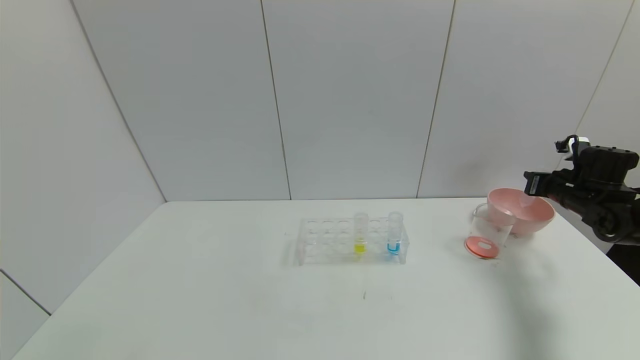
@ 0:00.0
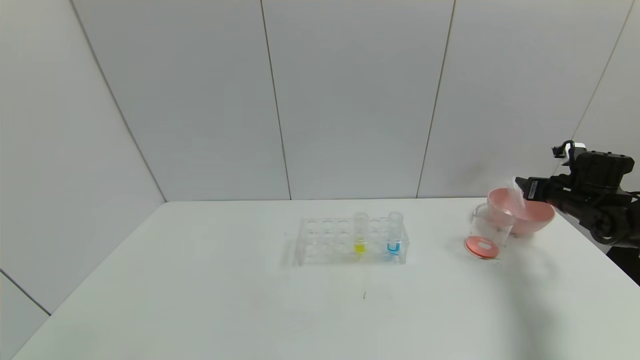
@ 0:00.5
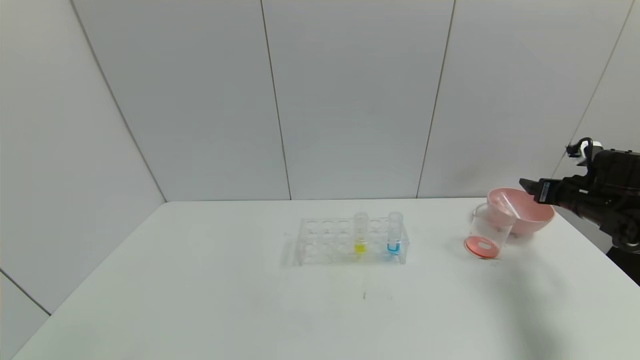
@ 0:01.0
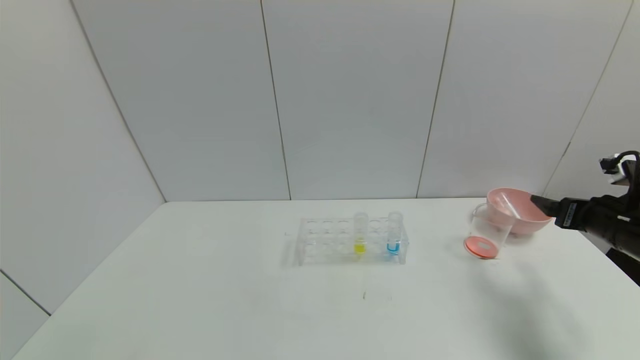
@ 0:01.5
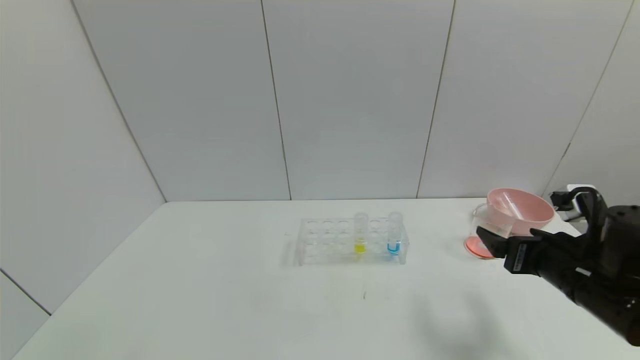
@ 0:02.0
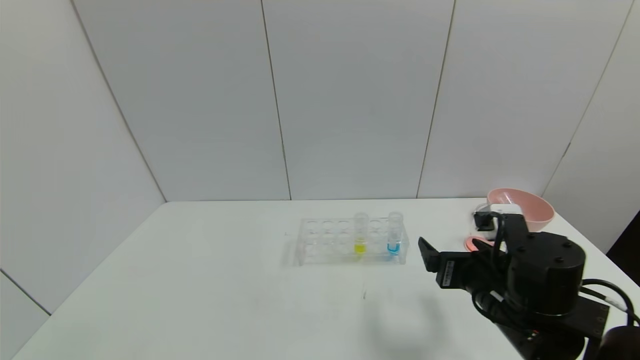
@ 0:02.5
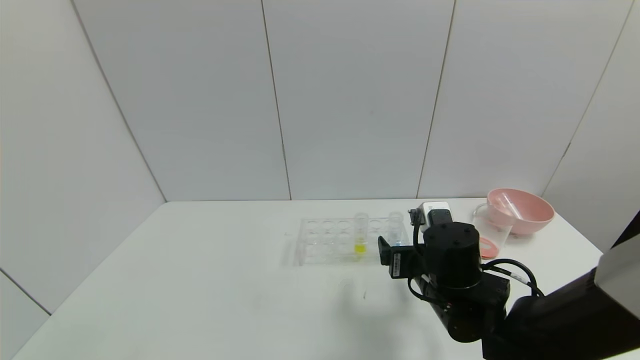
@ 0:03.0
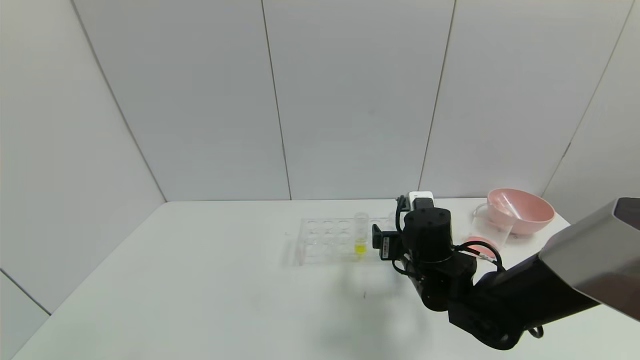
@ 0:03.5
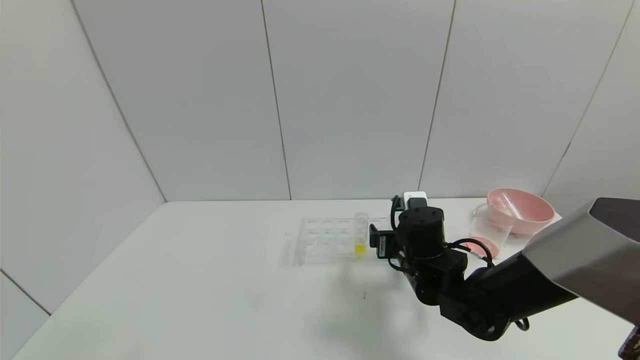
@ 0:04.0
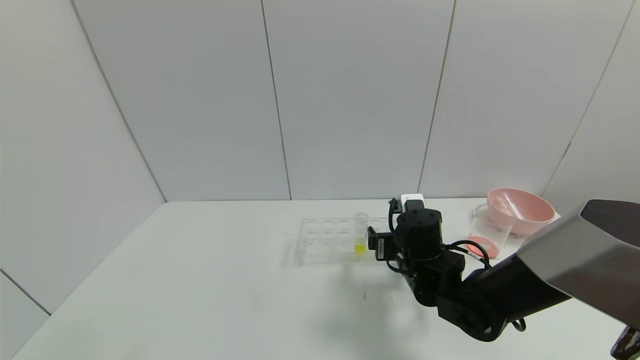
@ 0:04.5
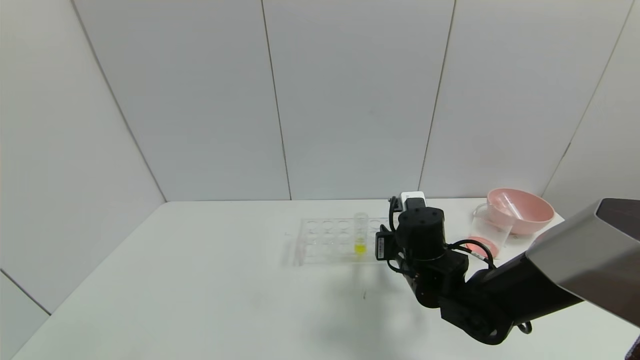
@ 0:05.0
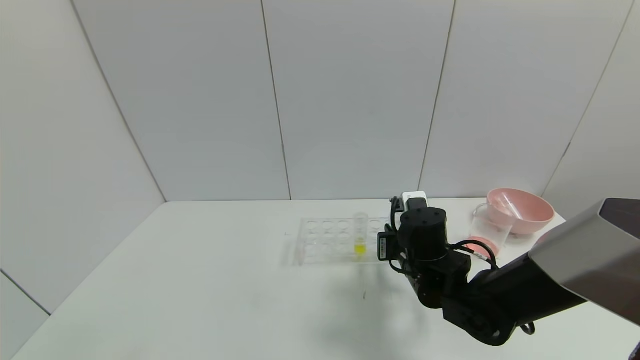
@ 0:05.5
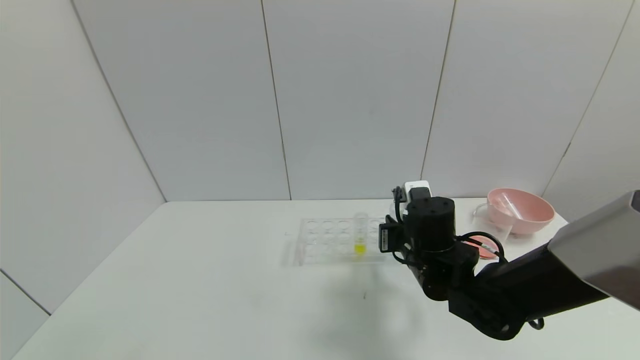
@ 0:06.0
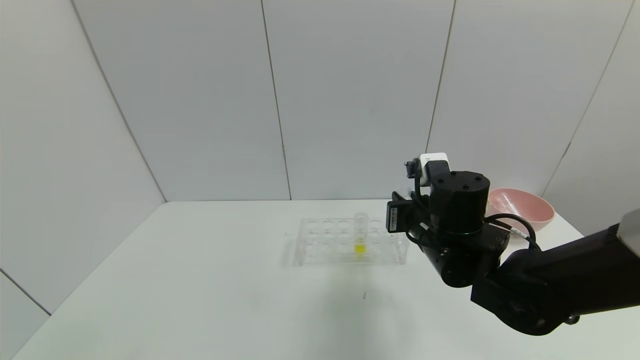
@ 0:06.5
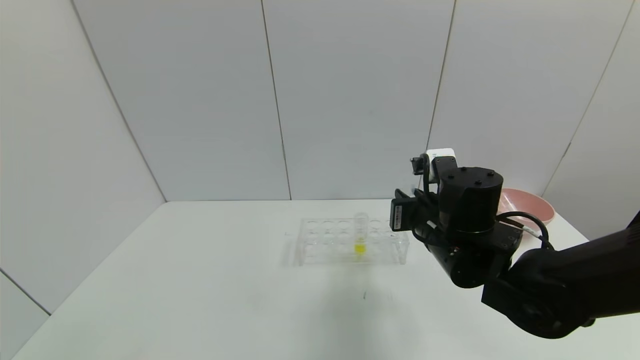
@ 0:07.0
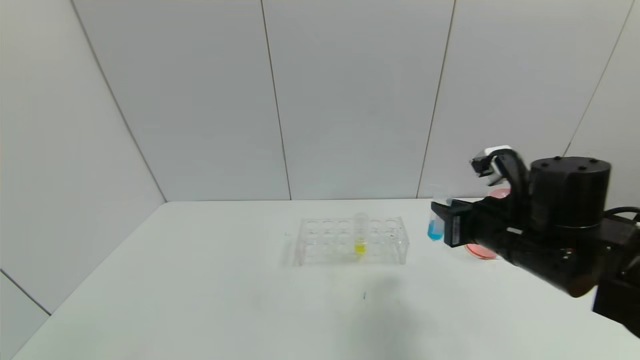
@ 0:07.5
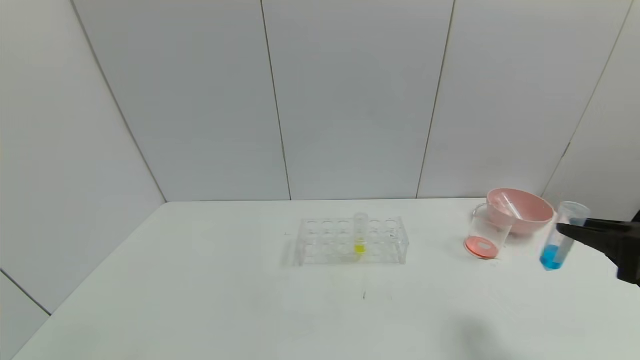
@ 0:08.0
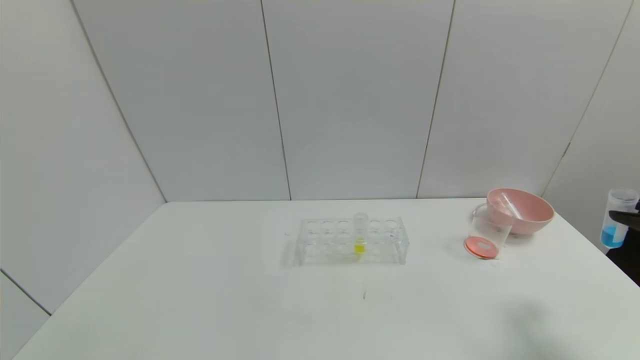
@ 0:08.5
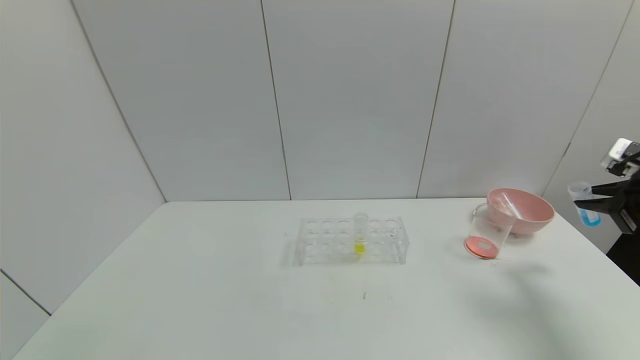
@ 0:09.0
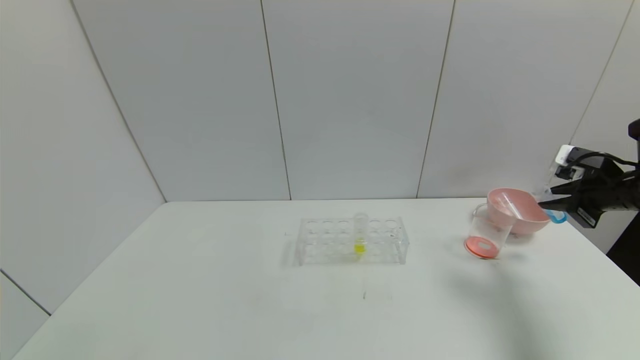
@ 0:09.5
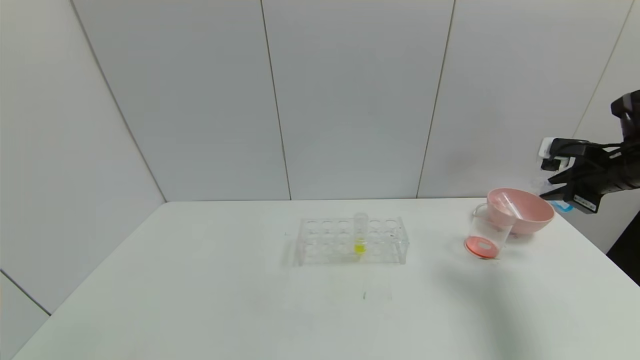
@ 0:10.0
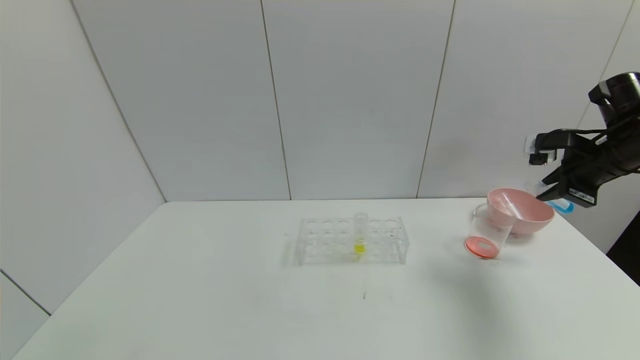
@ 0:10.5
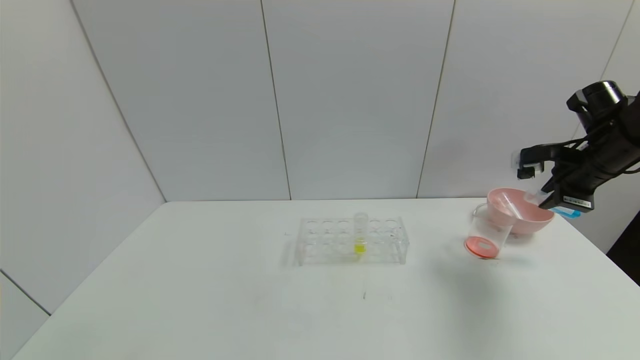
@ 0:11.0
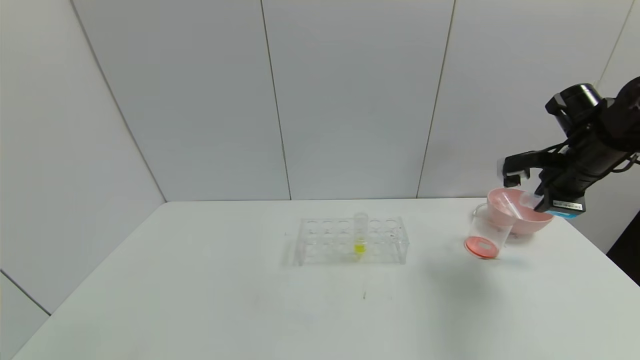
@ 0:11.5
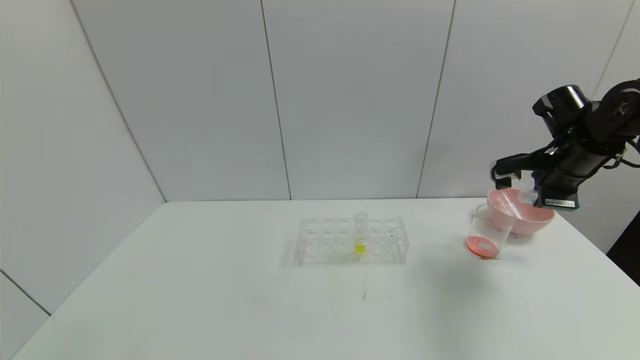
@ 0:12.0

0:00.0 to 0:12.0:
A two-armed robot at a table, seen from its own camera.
Task of the whole recording: pick up the test tube with red pigment and the test tube with blue pigment by grippers and pour them into the container.
Step, 0:00.0 to 0:02.0: Place the test tube into the bowl with right gripper.
Step, 0:02.5 to 0:07.5: Pick up the test tube containing the blue reagent with right gripper.
0:00.0 to 0:02.0: The right gripper shifts some 25 cm backward and to the left, and opens its fingers.
0:02.0 to 0:04.0: The right gripper heads to the left and forward, covering roughly 20 cm.
0:04.0 to 0:06.0: The right gripper closes its fingers.
0:06.0 to 0:08.0: The right gripper travels to the right, backward and upward by approximately 30 cm.
0:08.0 to 0:10.0: The right gripper shifts approximately 20 cm forward.
0:10.0 to 0:12.0: The right gripper goes some 5 cm to the left.

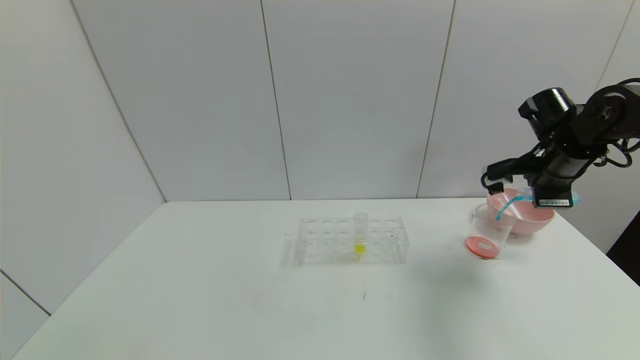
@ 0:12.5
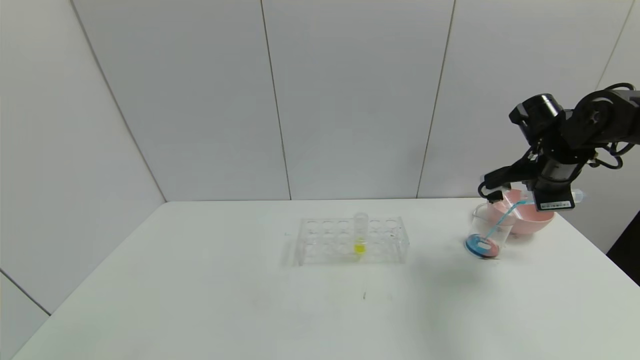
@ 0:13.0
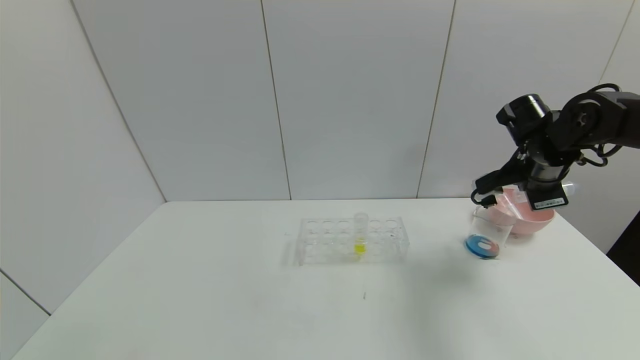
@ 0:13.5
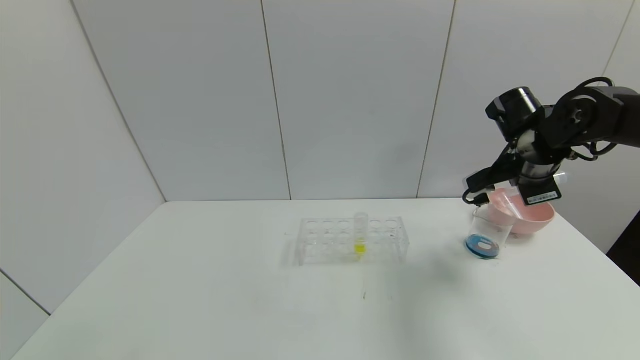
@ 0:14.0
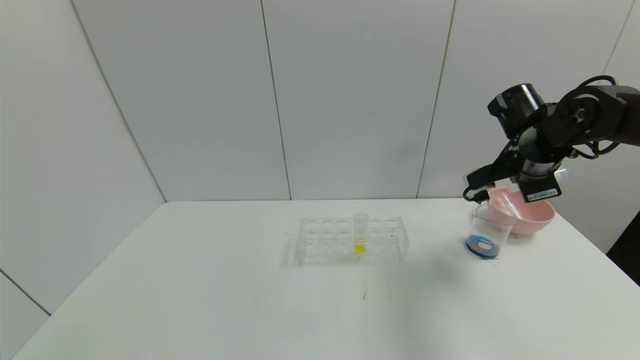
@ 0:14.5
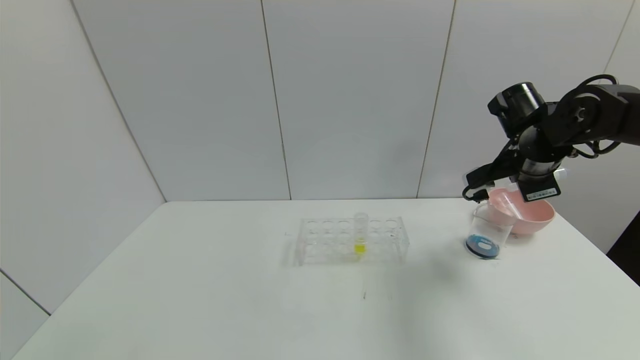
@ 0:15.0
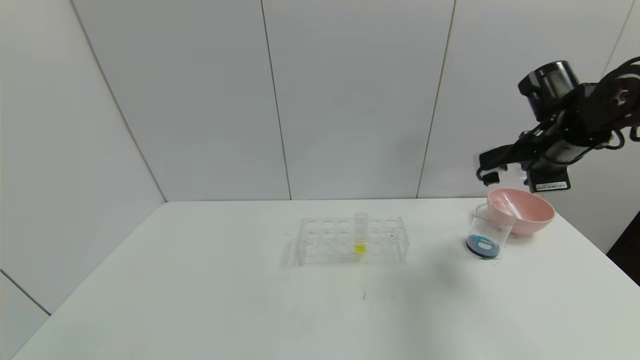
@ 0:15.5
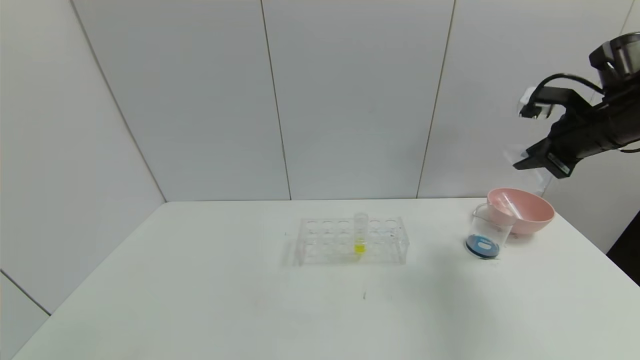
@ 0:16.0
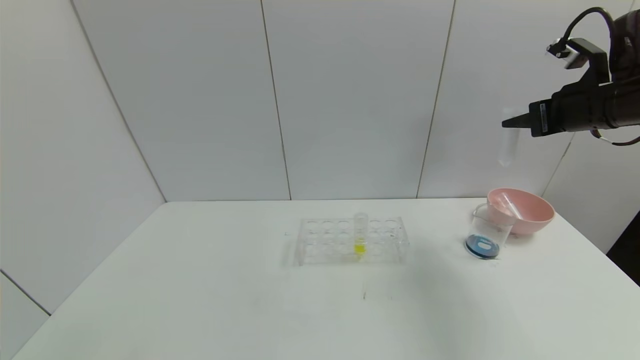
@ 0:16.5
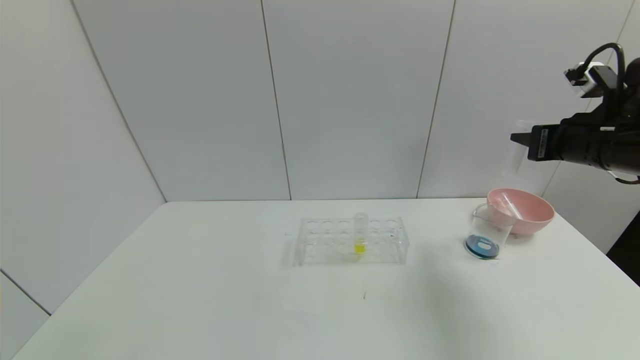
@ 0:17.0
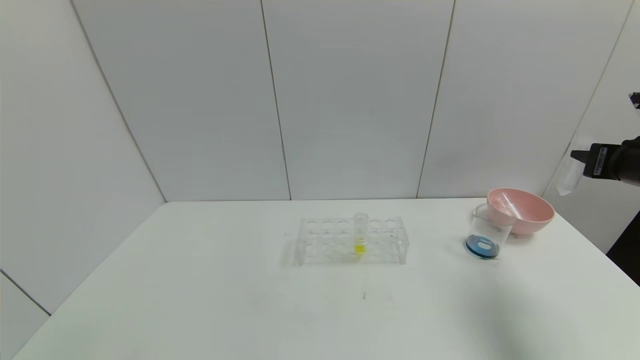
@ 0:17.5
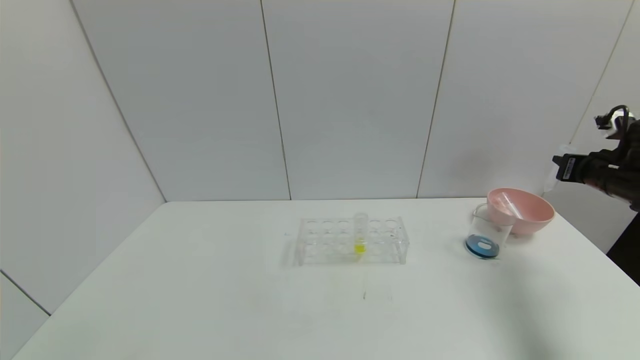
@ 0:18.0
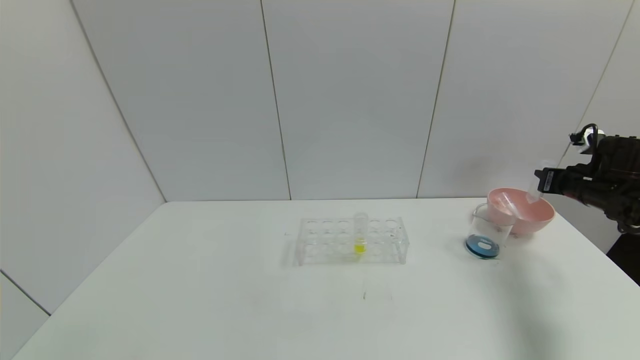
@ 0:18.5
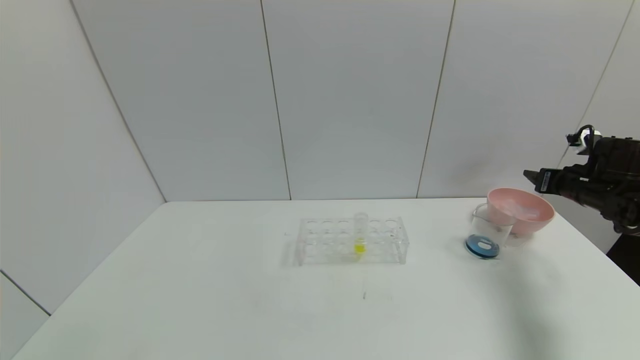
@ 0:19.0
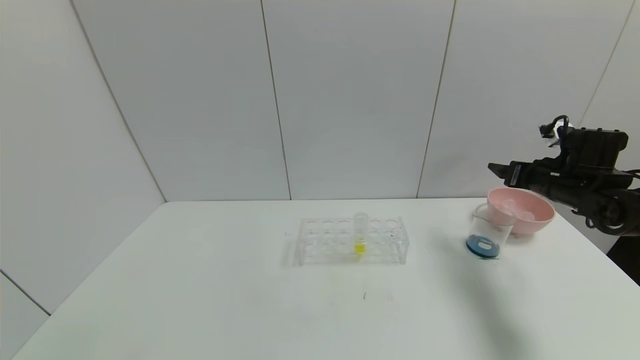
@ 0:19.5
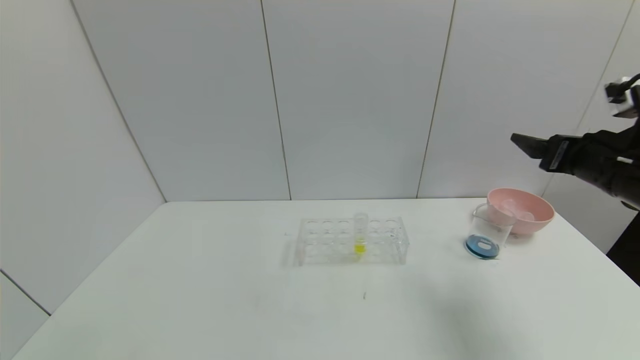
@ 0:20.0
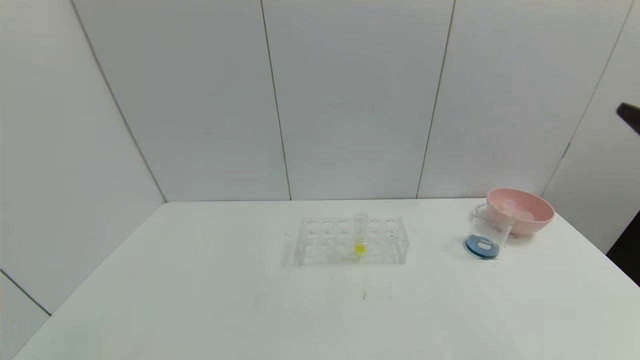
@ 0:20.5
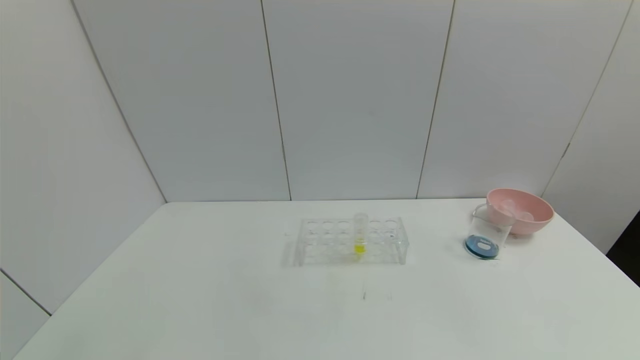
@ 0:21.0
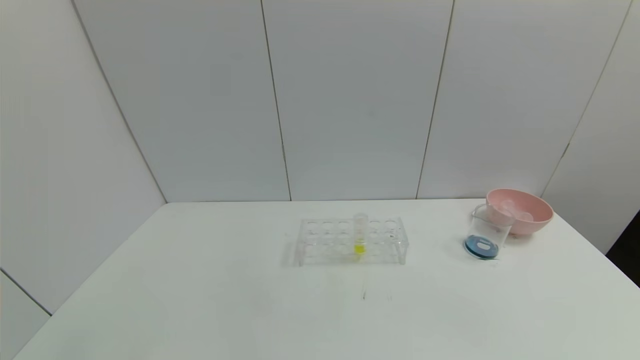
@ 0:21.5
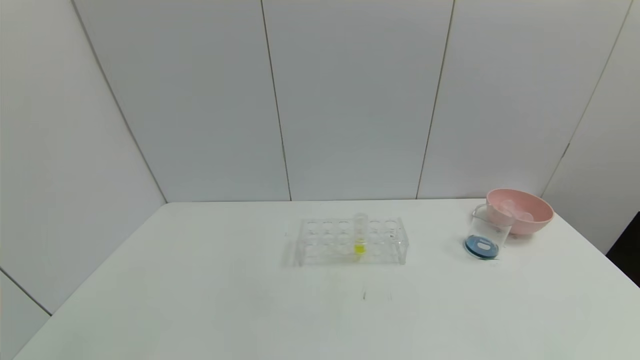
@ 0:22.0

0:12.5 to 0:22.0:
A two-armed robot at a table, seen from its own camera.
Task of the whole recording: pick up the test tube with red pigment and the test tube with blue pigment by grippers and pour them into the container.
Step, 0:12.5 to 0:18.0: Pour the blue reagent into the graduated cylinder with right gripper.
Step, 0:18.5 to 0:20.0: Place the test tube into the bowl with right gripper.
0:12.5 to 0:14.5: The grippers move only a little.
0:14.5 to 0:16.5: The right gripper goes some 10 cm upward and to the right.
0:16.5 to 0:18.0: The right gripper heads downward and to the right, covering approximately 15 cm.
0:18.0 to 0:20.0: The right gripper travels to the left, backward and upward by approximately 15 cm, and opens its fingers.
0:20.0 to 0:22.0: The right gripper travels backward and downward by about 35 cm.
